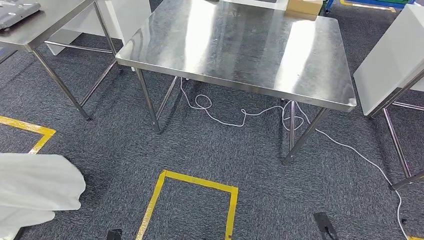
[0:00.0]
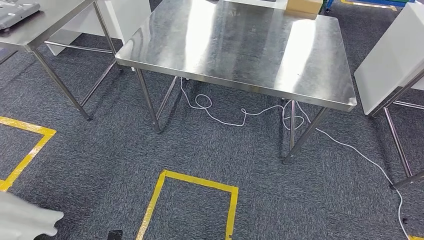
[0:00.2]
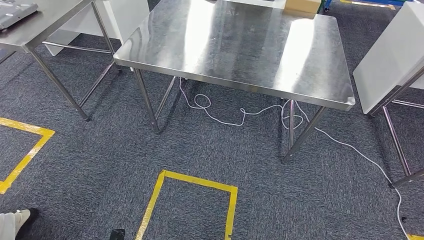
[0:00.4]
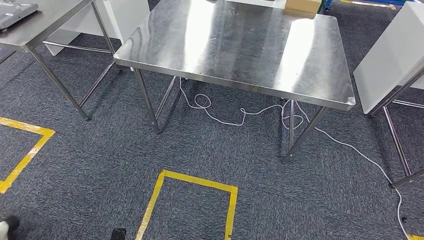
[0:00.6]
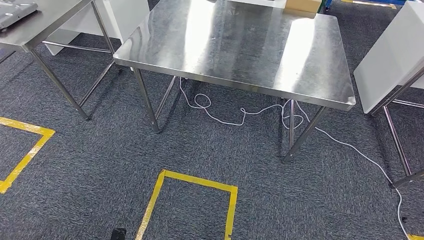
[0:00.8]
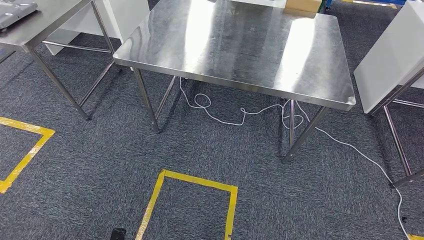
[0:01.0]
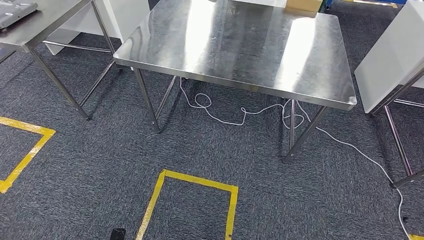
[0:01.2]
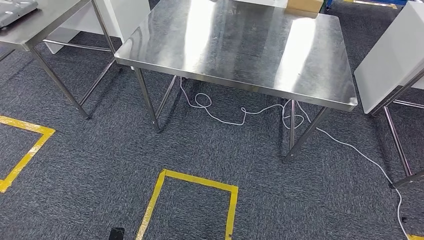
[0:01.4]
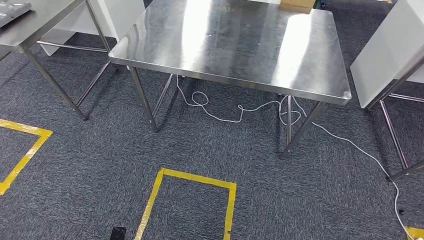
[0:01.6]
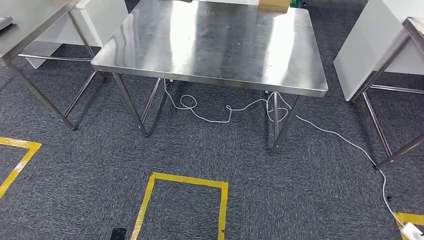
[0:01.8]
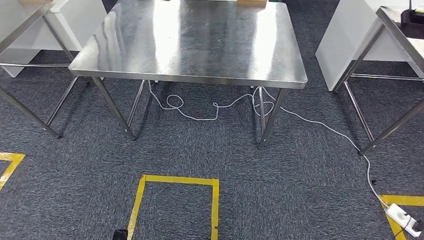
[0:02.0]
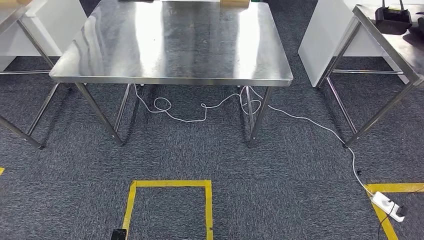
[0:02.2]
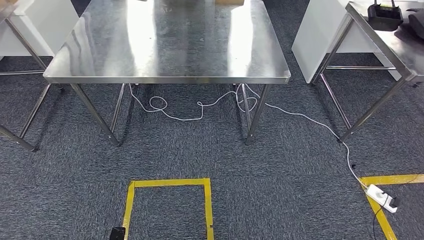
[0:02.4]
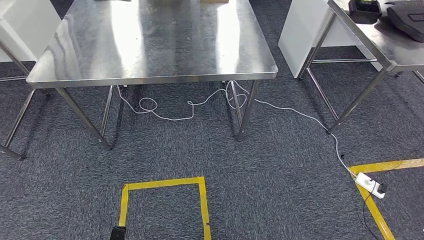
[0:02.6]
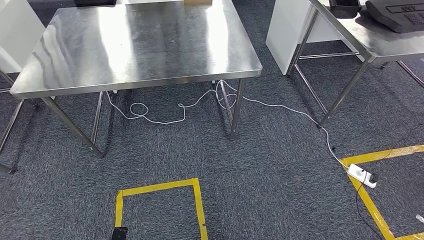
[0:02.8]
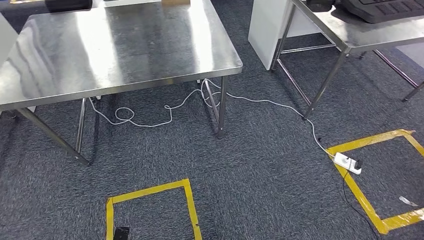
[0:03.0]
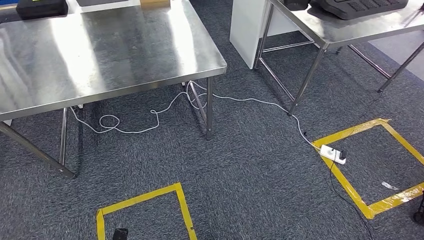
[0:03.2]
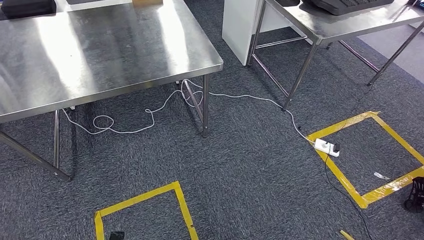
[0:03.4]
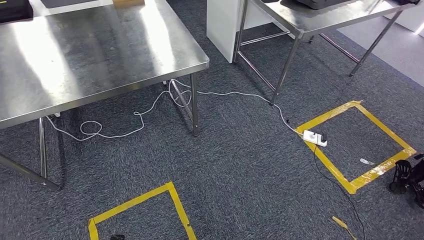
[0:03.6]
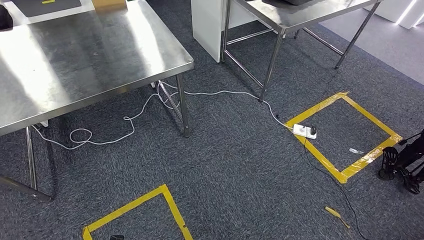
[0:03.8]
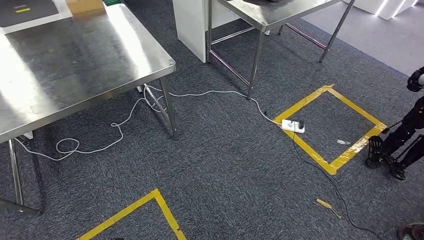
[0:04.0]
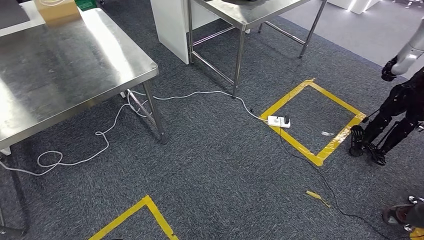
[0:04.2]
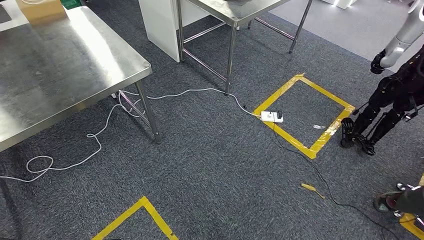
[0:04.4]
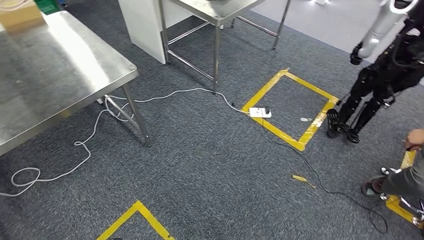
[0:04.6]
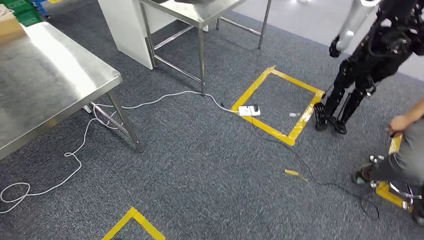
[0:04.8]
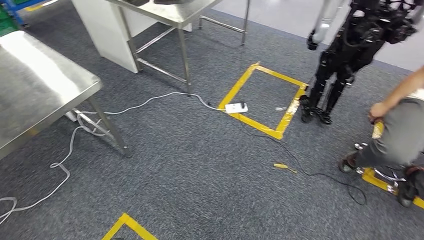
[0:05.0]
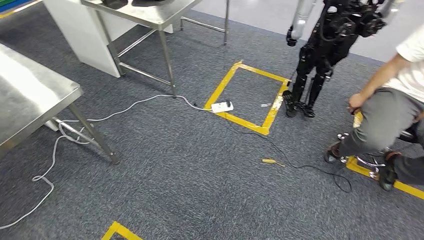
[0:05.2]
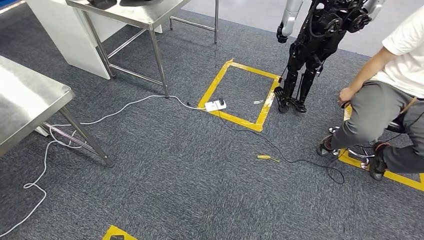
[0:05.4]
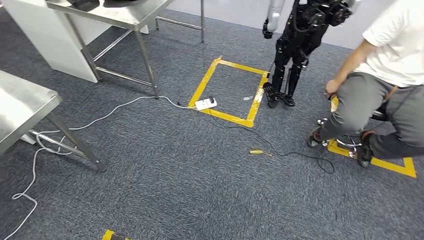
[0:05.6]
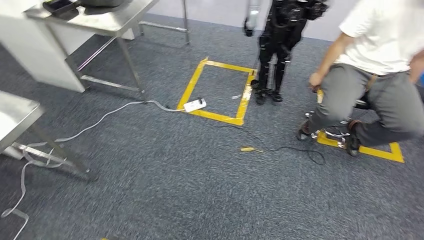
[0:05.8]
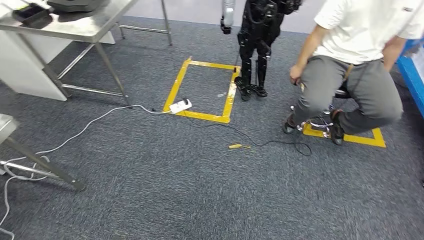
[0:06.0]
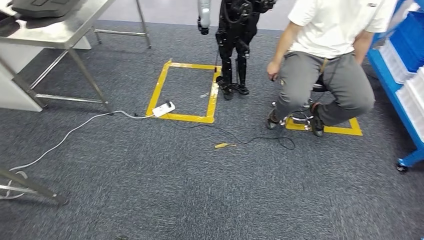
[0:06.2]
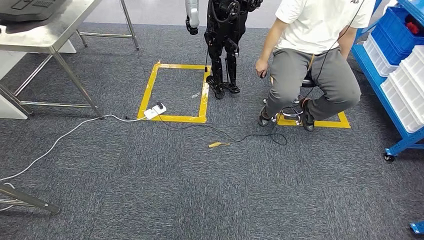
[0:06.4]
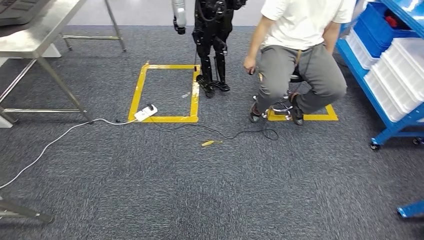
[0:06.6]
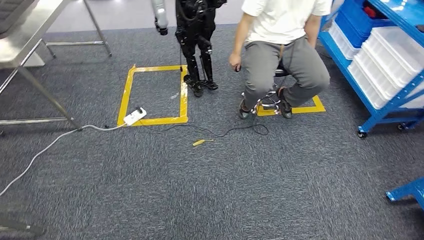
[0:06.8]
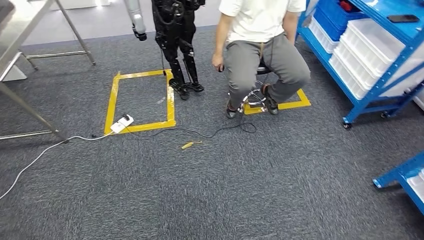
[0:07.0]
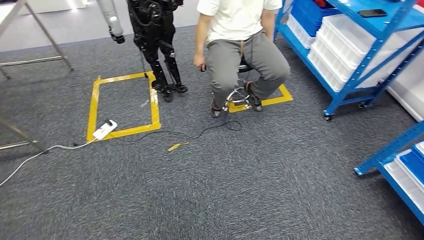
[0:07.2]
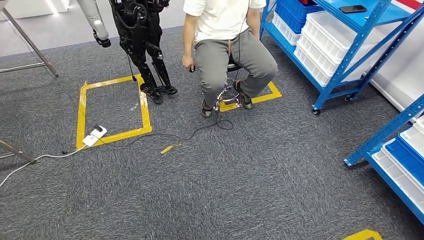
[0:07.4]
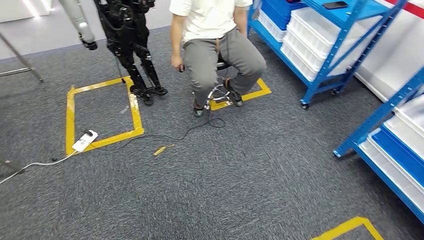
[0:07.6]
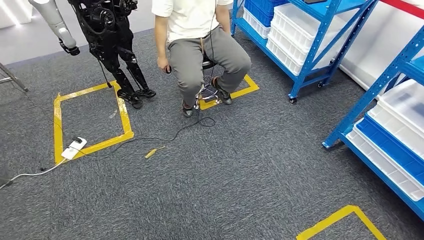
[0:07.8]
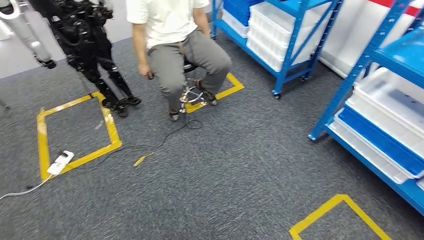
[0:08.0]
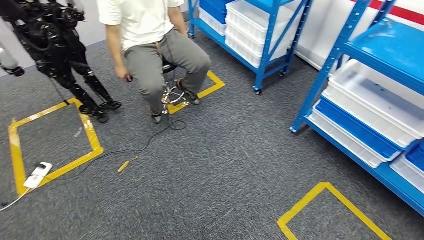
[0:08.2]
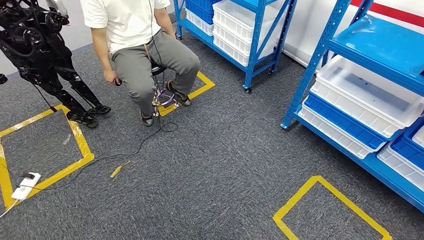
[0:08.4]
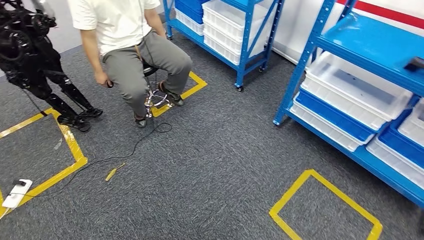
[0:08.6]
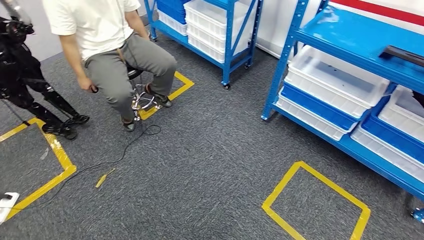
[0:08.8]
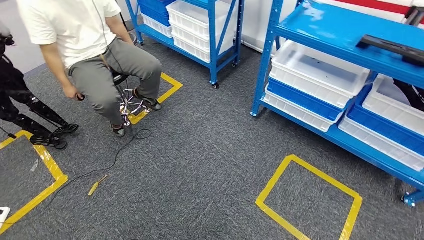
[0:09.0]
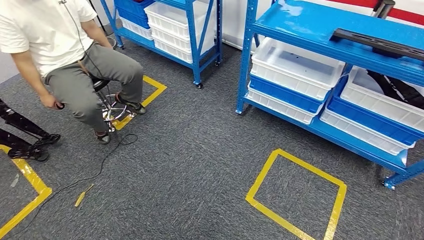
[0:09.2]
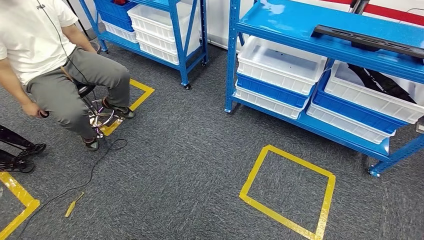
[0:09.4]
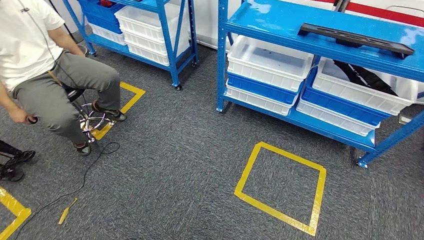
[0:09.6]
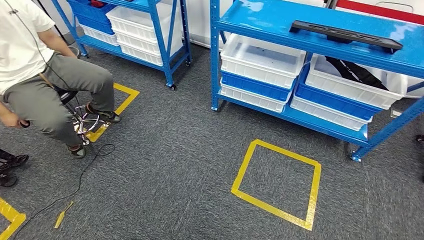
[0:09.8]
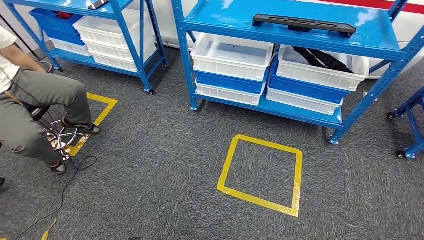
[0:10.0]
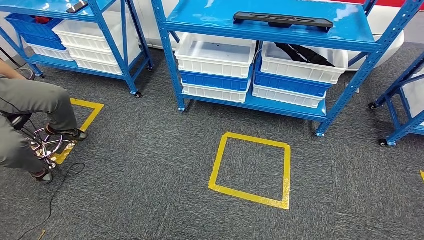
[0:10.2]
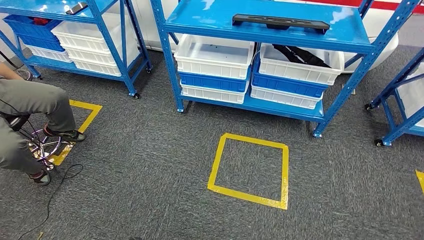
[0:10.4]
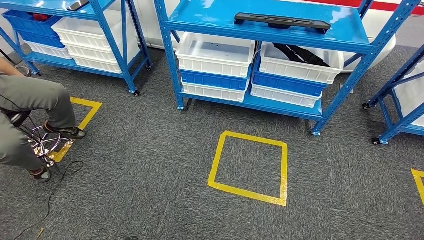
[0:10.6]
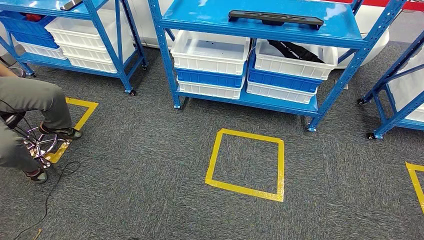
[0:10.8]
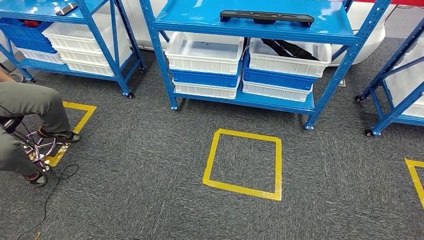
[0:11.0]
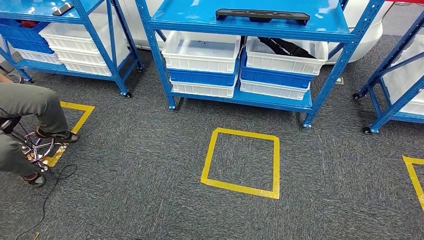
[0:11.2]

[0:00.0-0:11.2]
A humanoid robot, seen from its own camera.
Step, 0:00.0 to 0:11.0: Move to the initial position of the shelf.
